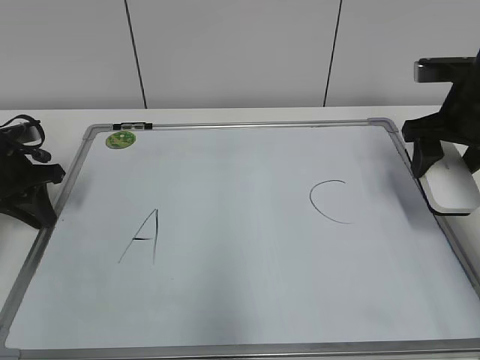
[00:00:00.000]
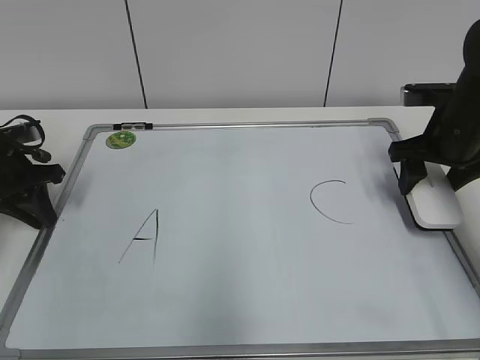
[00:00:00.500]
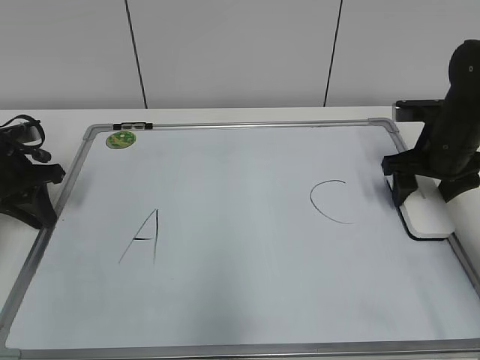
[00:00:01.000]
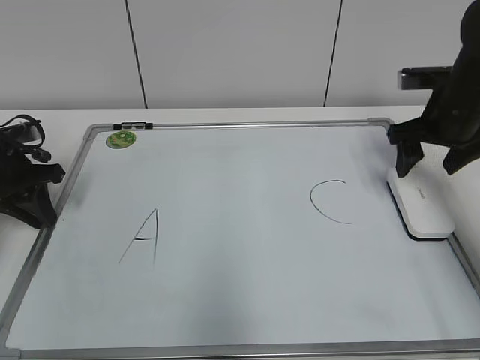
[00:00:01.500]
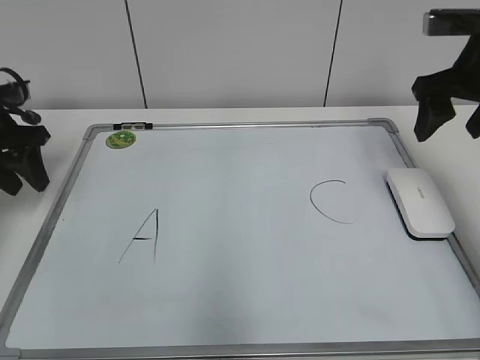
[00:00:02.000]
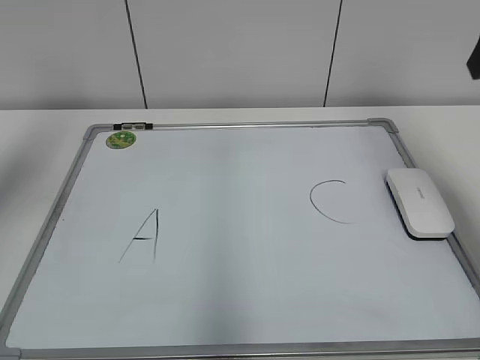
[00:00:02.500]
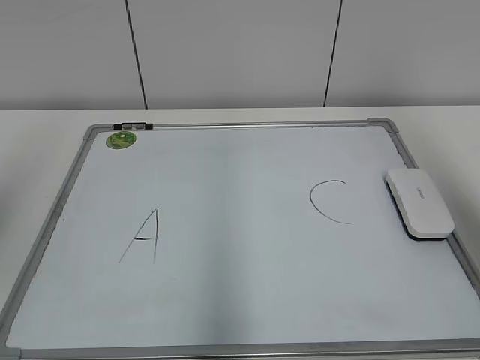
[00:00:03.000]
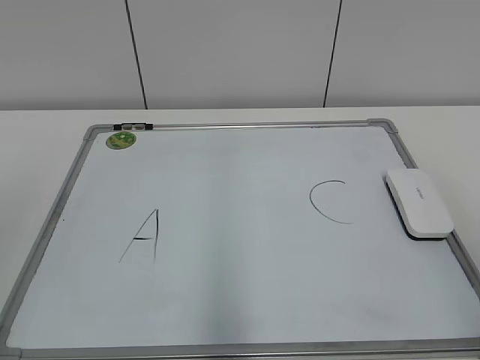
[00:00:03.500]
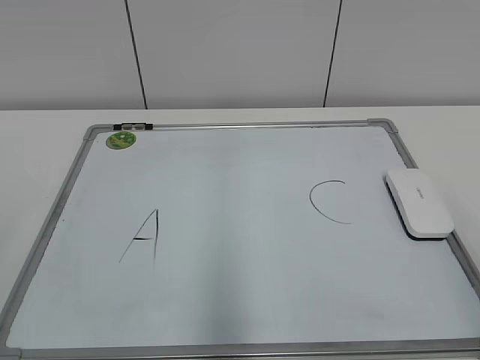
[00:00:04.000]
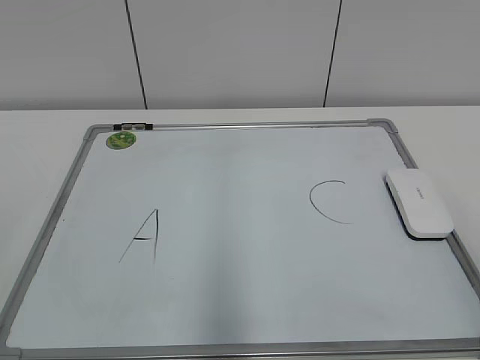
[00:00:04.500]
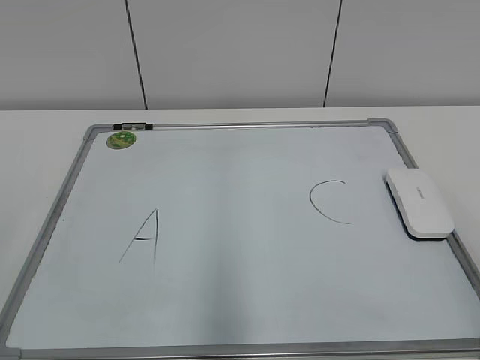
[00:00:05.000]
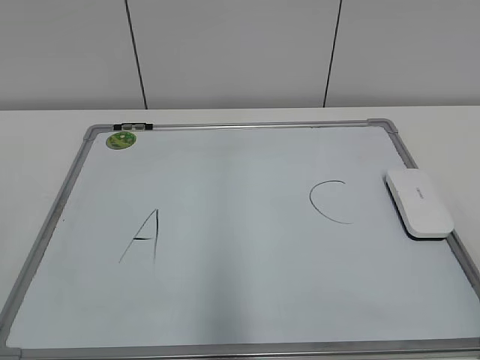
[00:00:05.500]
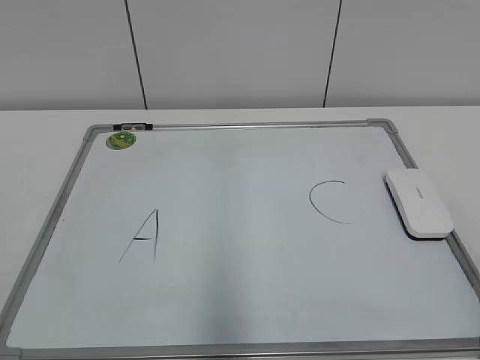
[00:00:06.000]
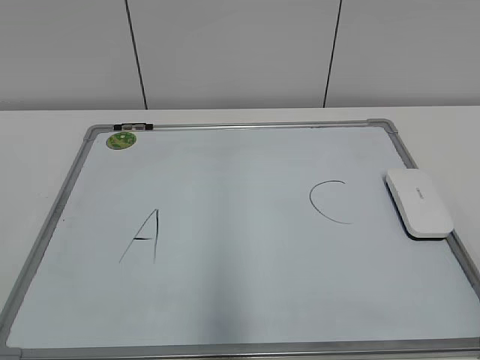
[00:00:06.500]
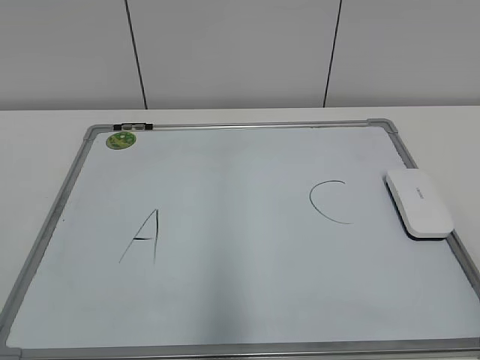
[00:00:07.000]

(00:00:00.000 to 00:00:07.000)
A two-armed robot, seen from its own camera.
Task of the whole recording: pick up the eraser on the blackboard and erase the letter "B".
00:00:00.000 - 00:00:02.000: The left gripper heads upward, covering about 5 cm, and opens its fingers.
00:00:02.000 - 00:00:03.500: The left gripper moves backward and upward, approximately 40 cm; the right gripper heads backward, covering approximately 35 cm.

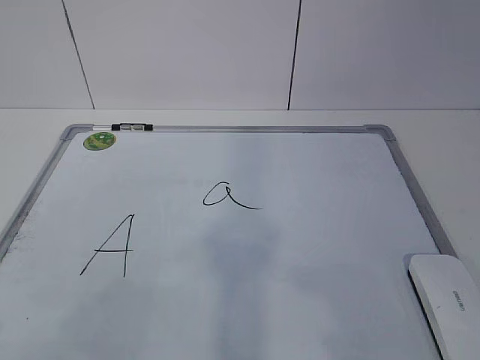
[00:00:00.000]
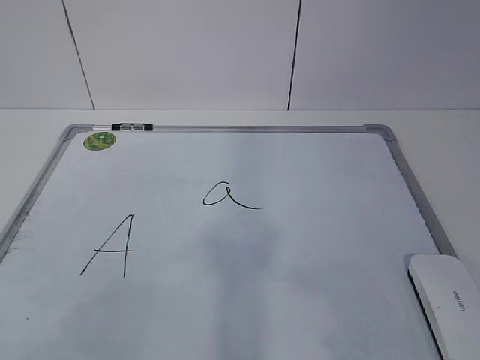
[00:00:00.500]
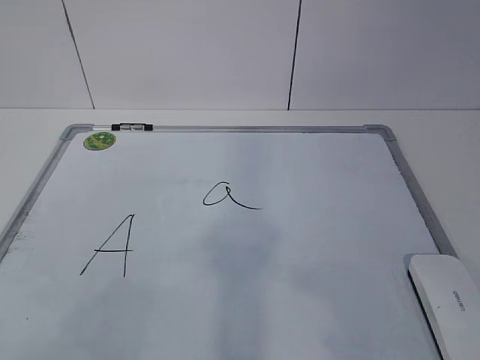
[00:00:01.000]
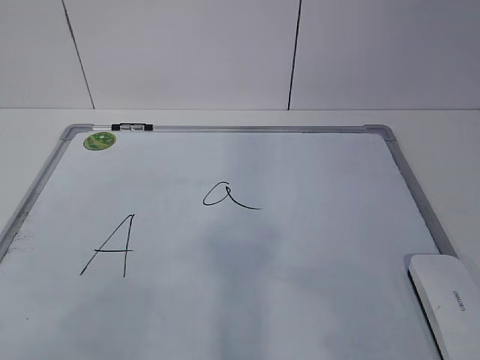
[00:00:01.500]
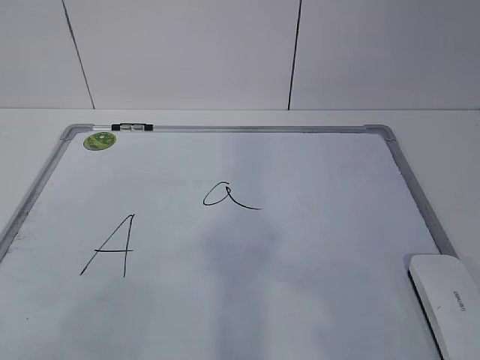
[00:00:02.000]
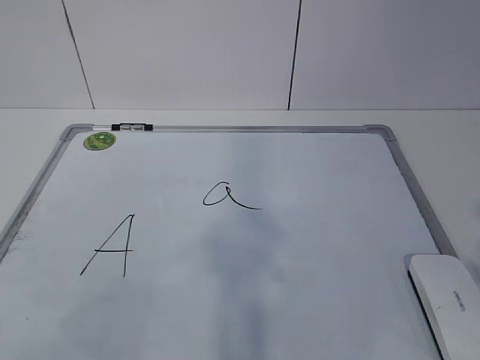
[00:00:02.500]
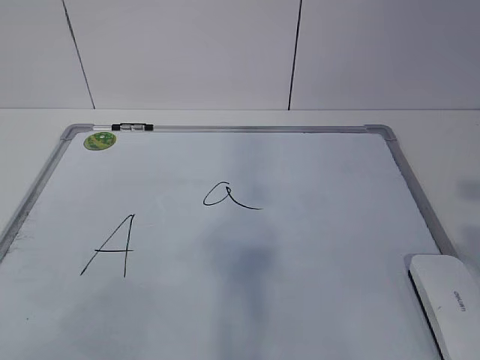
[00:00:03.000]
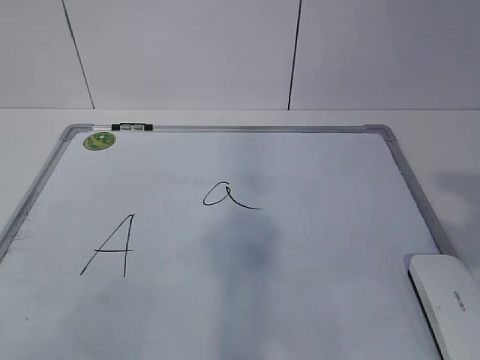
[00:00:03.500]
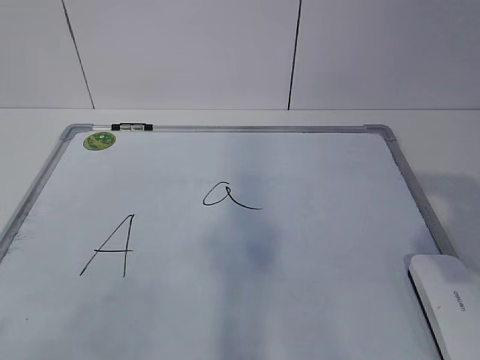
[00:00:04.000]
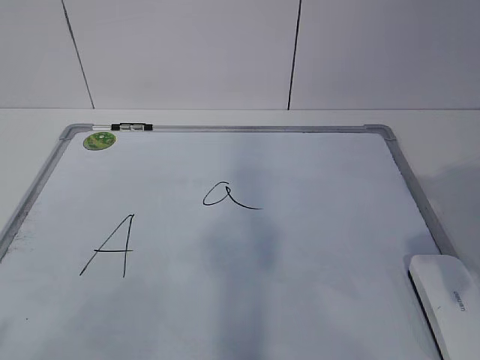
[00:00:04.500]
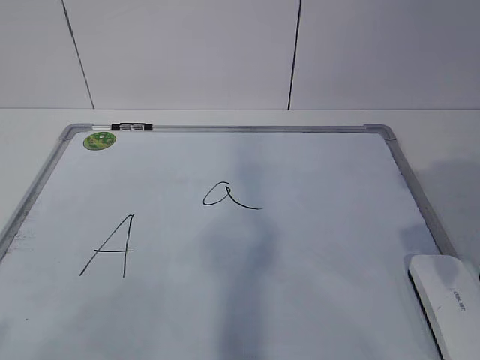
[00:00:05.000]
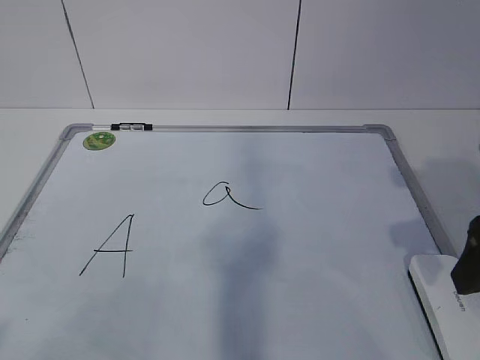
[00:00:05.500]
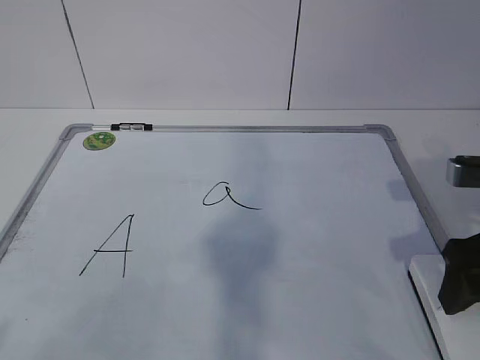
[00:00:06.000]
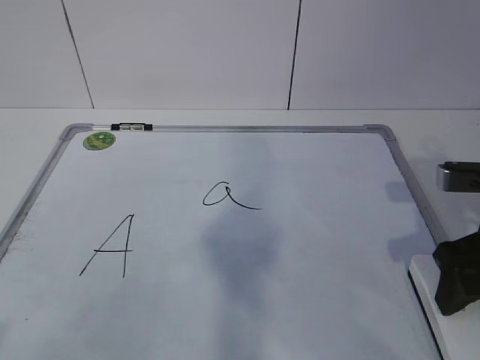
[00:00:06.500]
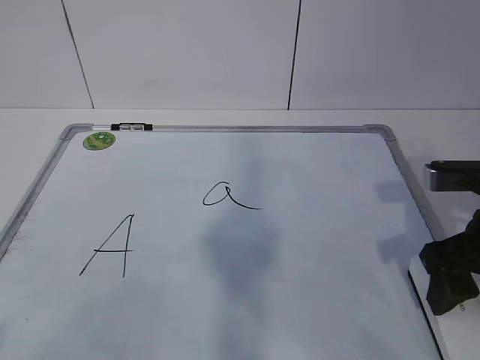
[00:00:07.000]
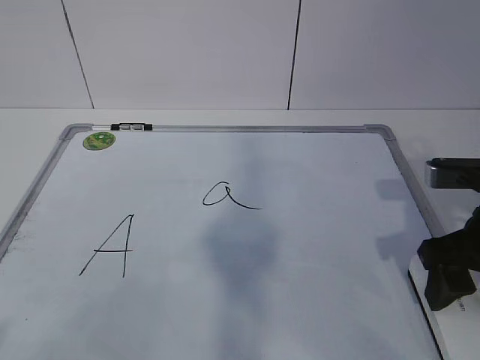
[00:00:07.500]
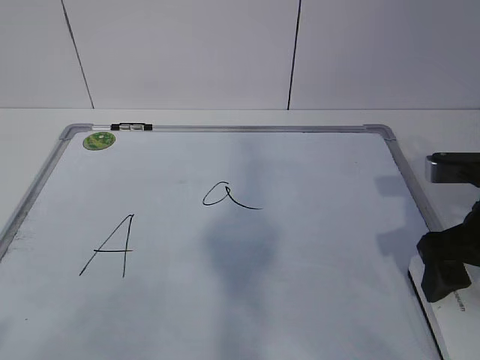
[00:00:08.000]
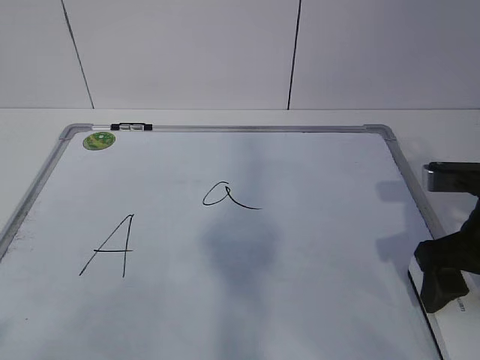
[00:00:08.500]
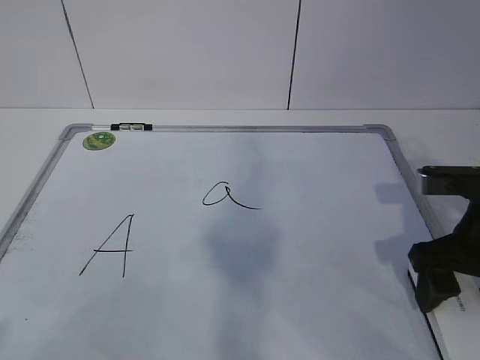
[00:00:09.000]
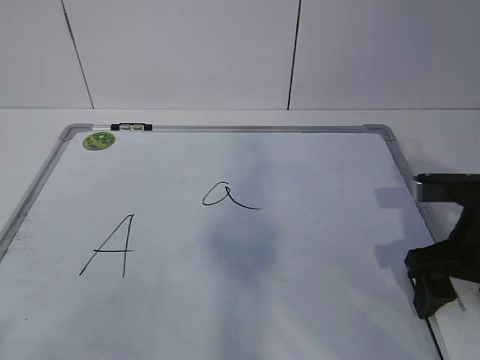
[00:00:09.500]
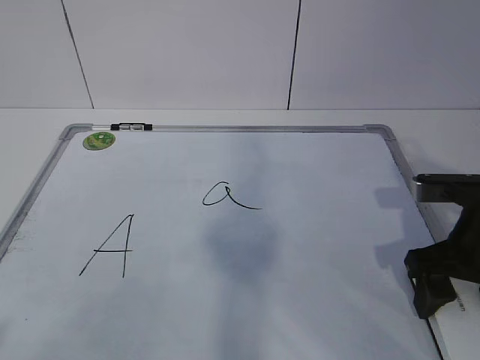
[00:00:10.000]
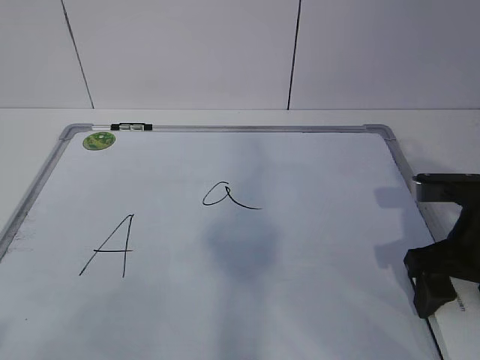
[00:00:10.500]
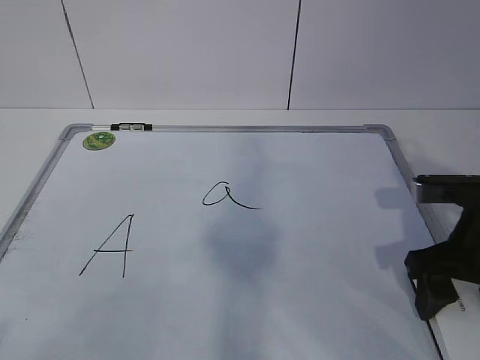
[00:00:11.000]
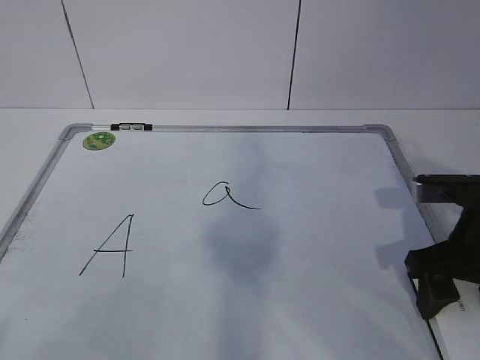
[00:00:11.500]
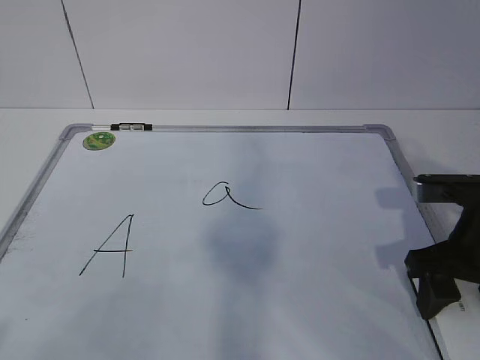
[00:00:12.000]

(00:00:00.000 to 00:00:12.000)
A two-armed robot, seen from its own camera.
Task of the whole recording: pick up the eraser on the blackboard and erase the letter "a".
Step, 00:00:00.000 - 00:00:10.000: Grab the eraser with your right hand.
00:00:04.000 - 00:00:06.000: The right gripper goes about 15 cm forward and downward, and opens.
00:00:06.000 - 00:00:08.000: The right gripper closes, then opens again.
00:00:08.000 - 00:00:10.000: The grippers move only a little.

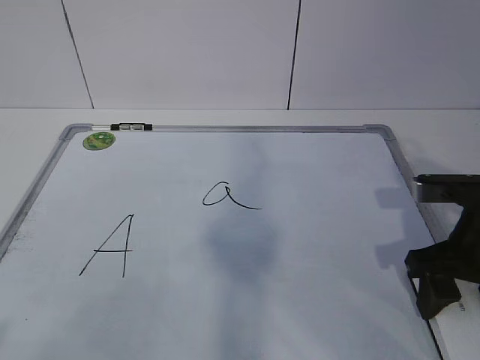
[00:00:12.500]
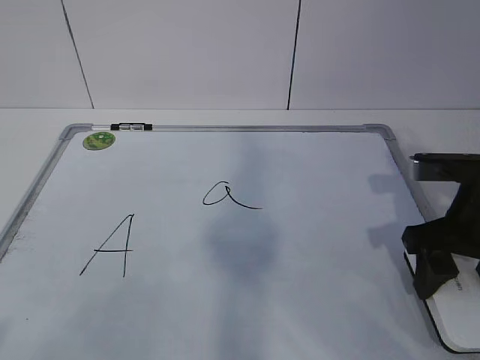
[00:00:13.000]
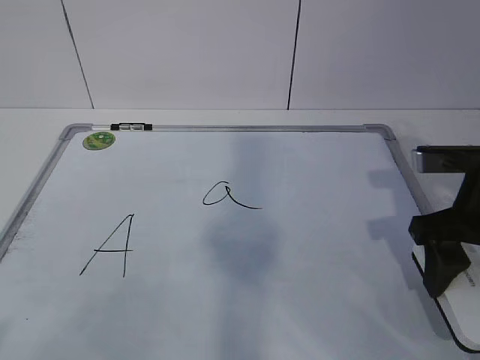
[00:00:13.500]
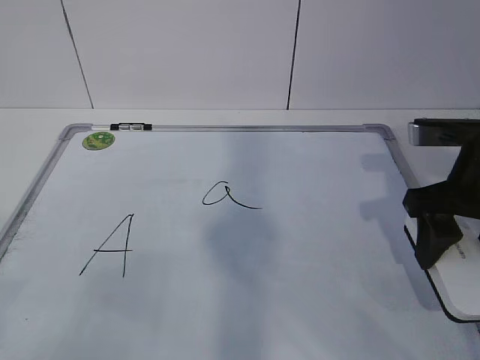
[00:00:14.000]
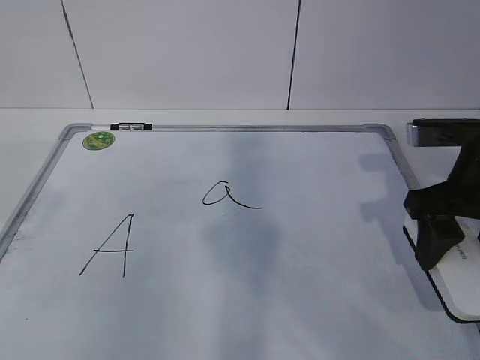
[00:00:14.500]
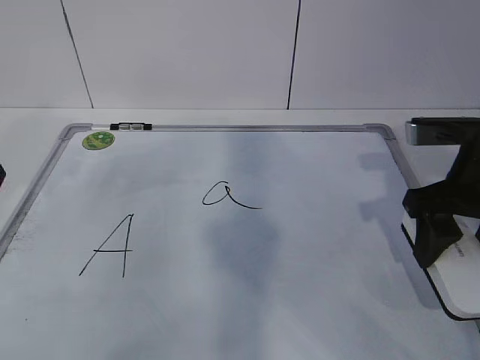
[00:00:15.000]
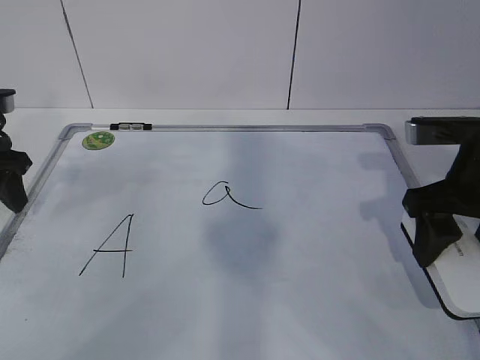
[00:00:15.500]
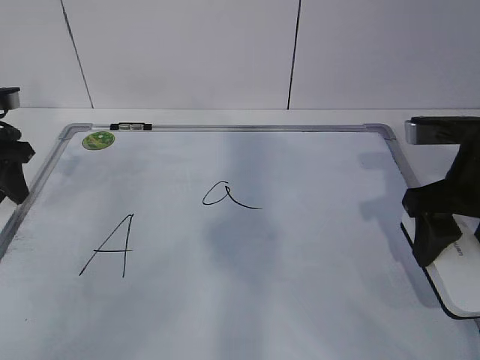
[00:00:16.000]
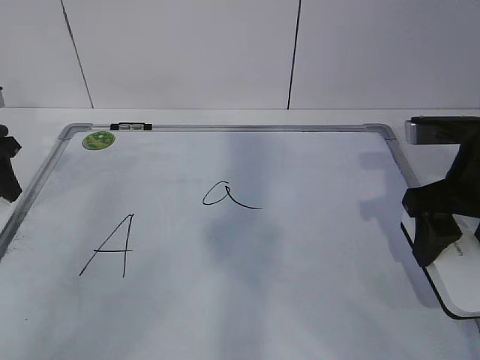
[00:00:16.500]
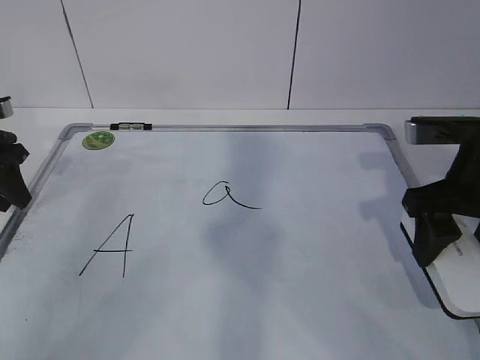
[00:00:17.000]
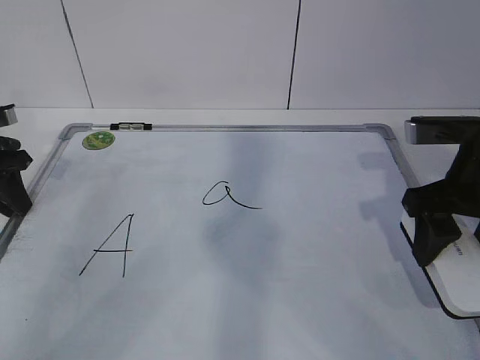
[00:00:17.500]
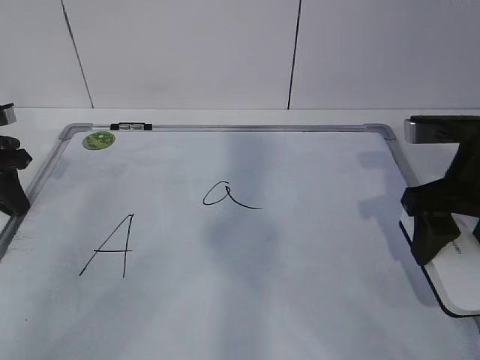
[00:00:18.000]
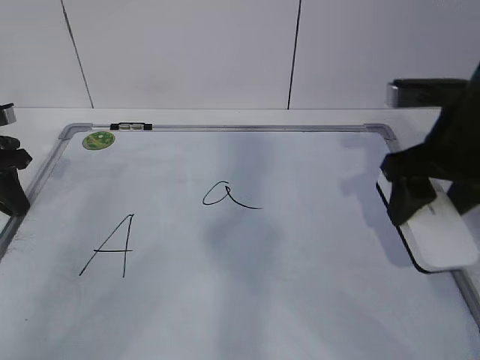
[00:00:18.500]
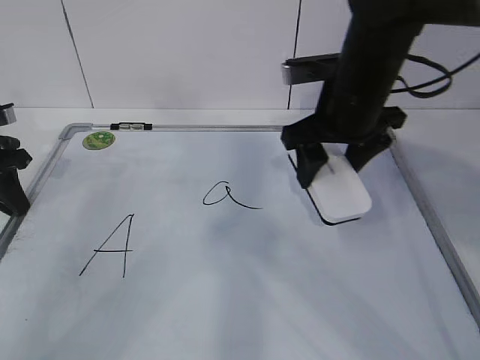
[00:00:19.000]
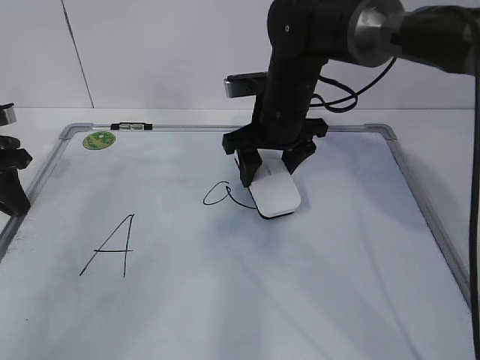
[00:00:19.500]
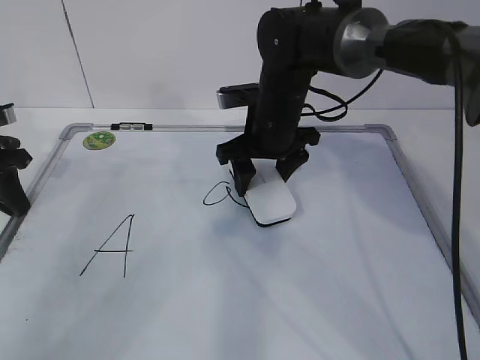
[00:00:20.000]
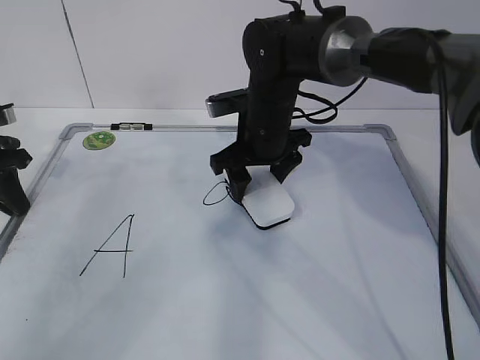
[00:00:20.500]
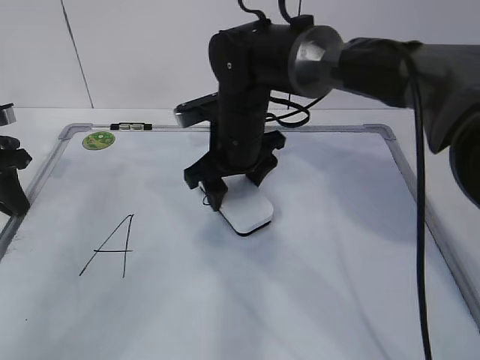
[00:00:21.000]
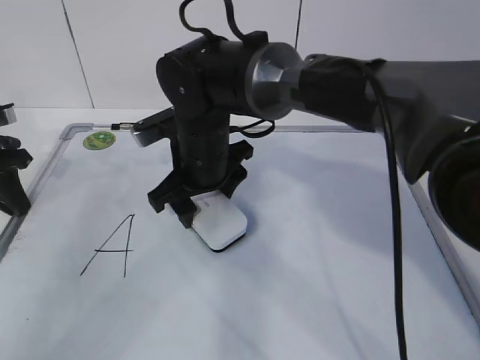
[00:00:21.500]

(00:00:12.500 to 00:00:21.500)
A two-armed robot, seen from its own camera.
Task of the whole recording: pick up the eraser on the blackboard and erase the letter "a".
Step, 00:00:12.500 - 00:00:14.500: Hold the drawing board steady with your left hand.
Step, 00:00:15.000 - 00:00:18.500: Erase the letter a with your right hand.
Step, 00:00:19.000 - 00:00:21.500: Put down the eraser with your right hand.
00:00:12.500 - 00:00:14.500: The right gripper is displaced upward by some 5 cm.
00:00:14.500 - 00:00:17.000: The left gripper moves forward and downward, about 25 cm, and opens, then closes again.
00:00:17.000 - 00:00:19.500: The right gripper moves to the left and forward, some 20 cm, while the left gripper closes up.
00:00:19.500 - 00:00:21.500: The right gripper shifts some 10 cm to the left.
